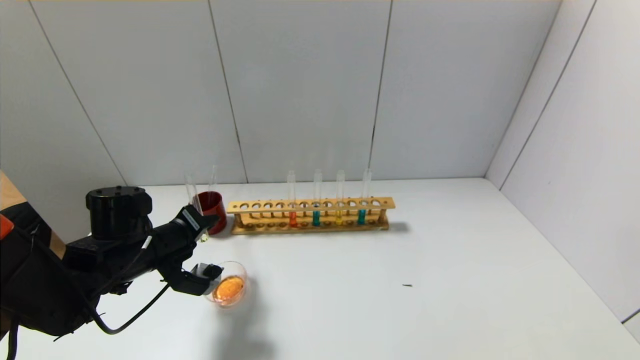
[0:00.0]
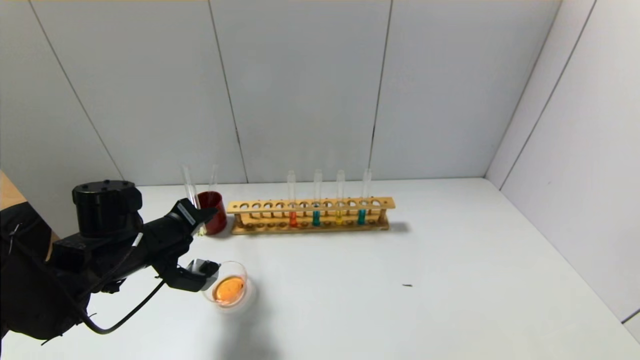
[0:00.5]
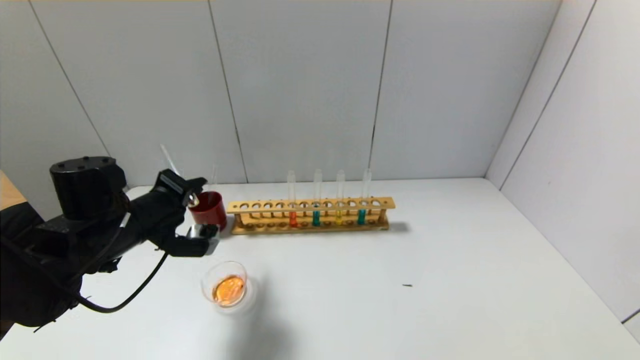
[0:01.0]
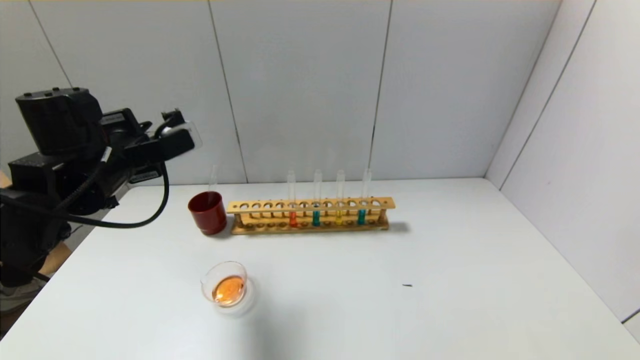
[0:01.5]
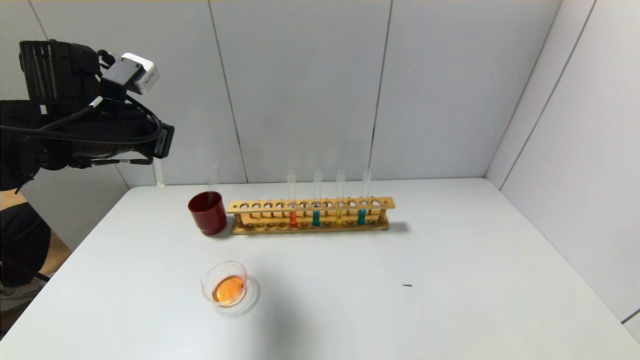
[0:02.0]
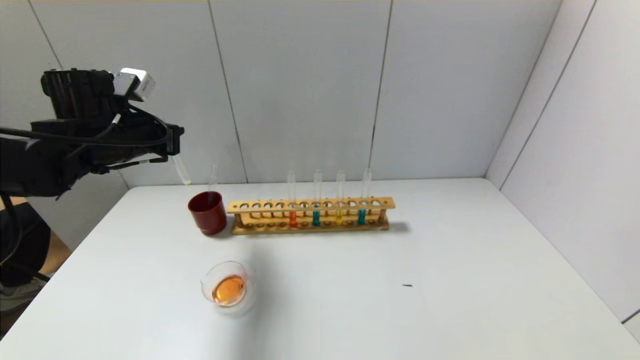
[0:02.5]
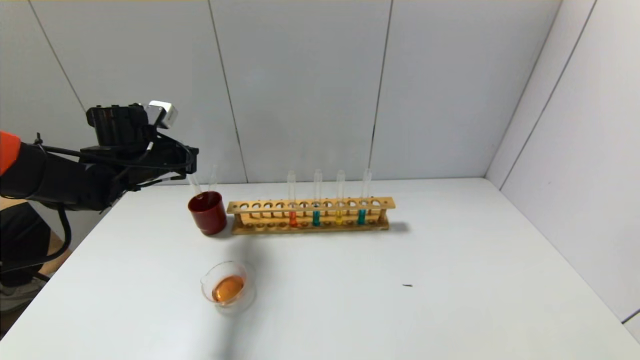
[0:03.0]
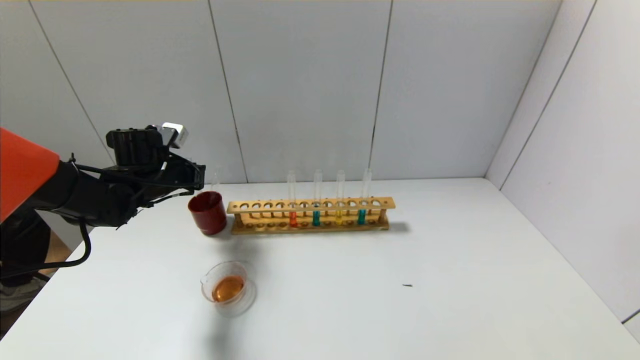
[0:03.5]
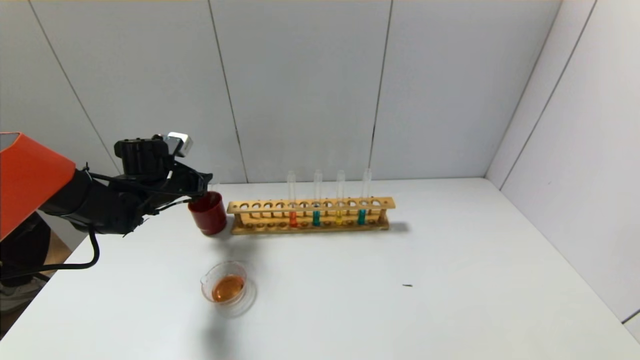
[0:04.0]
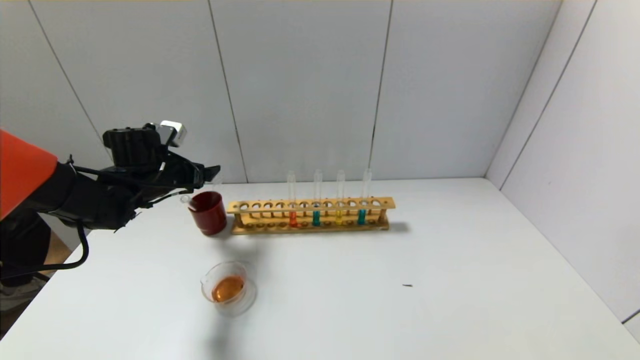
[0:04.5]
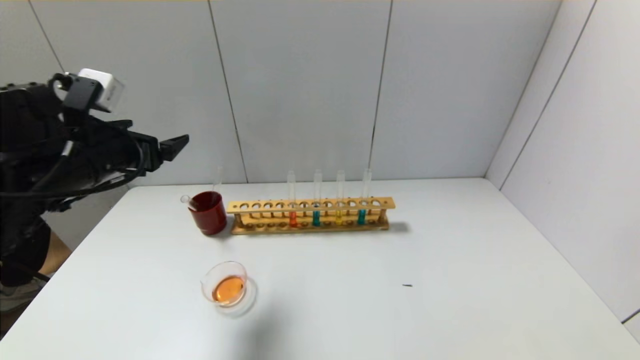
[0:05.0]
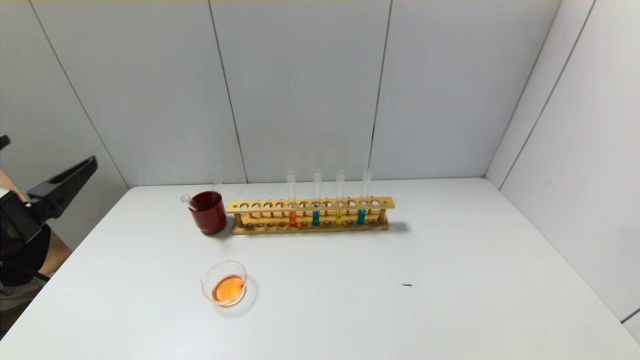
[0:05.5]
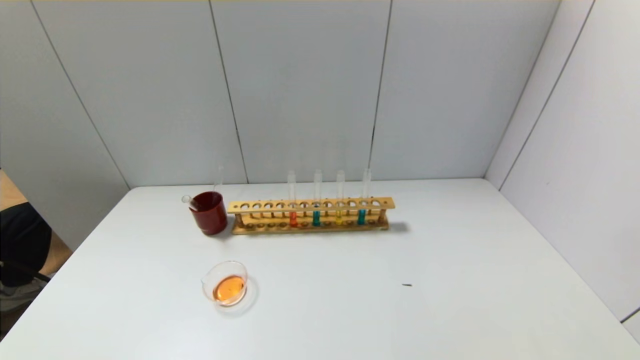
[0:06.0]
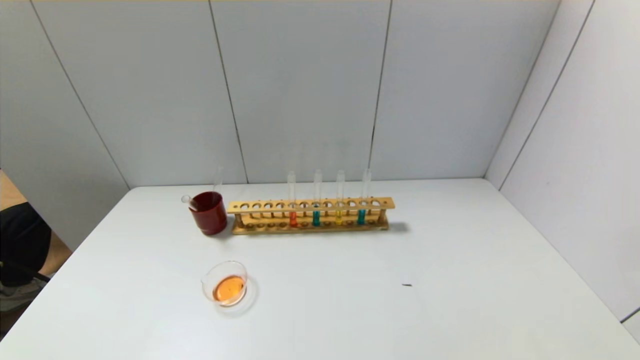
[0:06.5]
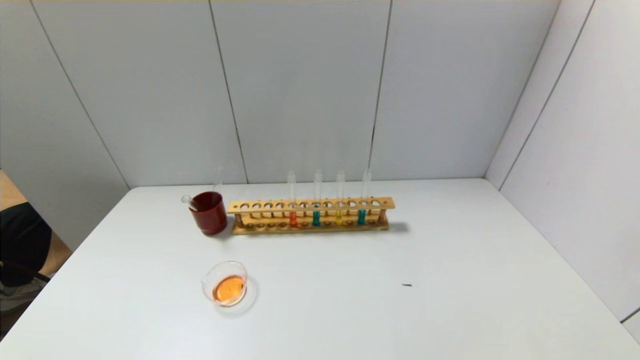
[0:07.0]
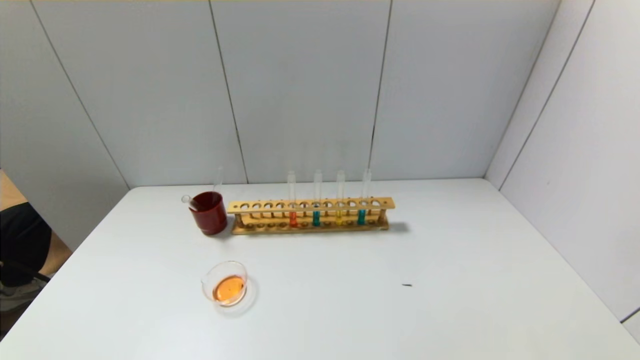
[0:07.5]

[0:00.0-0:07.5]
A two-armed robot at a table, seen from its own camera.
Step, 0:01.5 to 0:03.5: Place the test tube into the brown cup with the left gripper.
0:00.0 to 0:02.0: The left gripper is displaced upward by roughly 15 cm.
0:02.0 to 0:04.0: The left gripper moves downward and forward, some 20 cm.
0:04.0 to 0:05.5: The left gripper travels backward and upward by approximately 35 cm, and opens its fingers.
0:05.5 to 0:07.5: The left gripper heads downward and backward, covering some 20 cm.

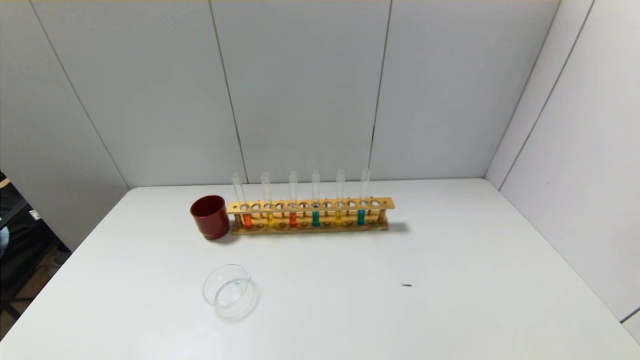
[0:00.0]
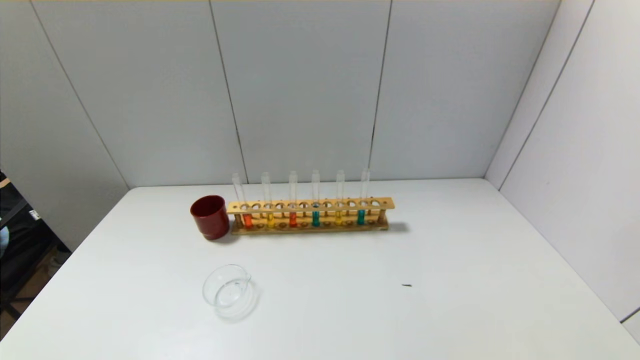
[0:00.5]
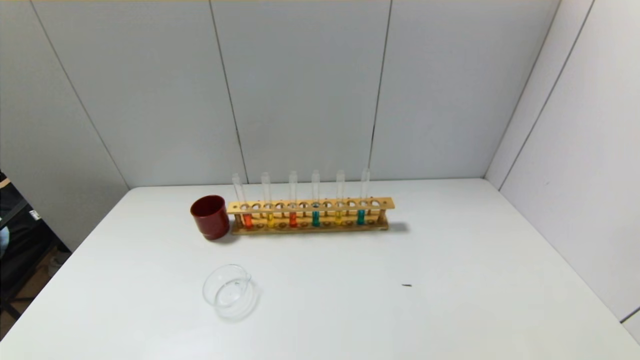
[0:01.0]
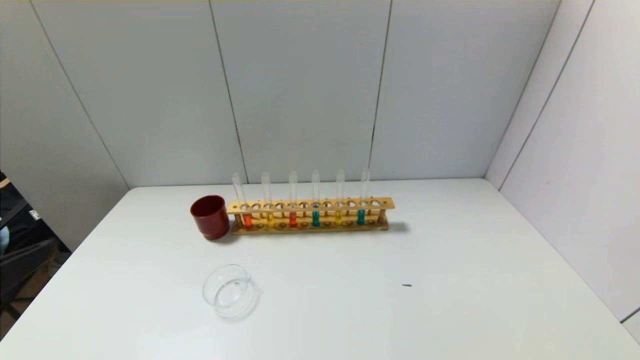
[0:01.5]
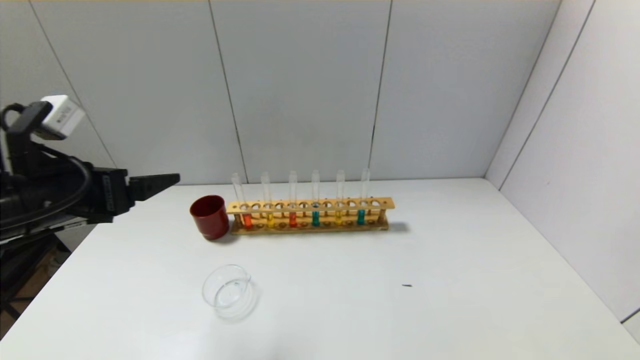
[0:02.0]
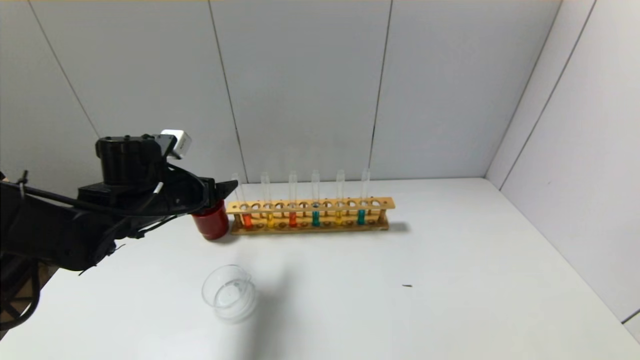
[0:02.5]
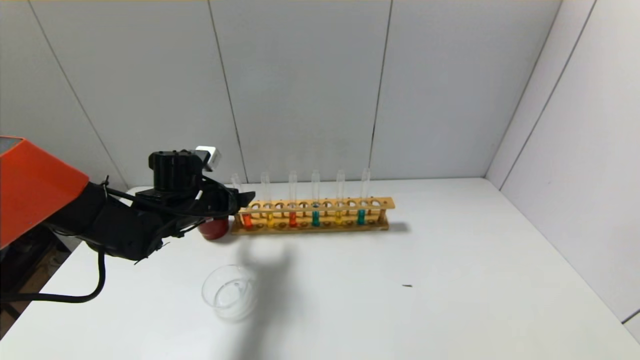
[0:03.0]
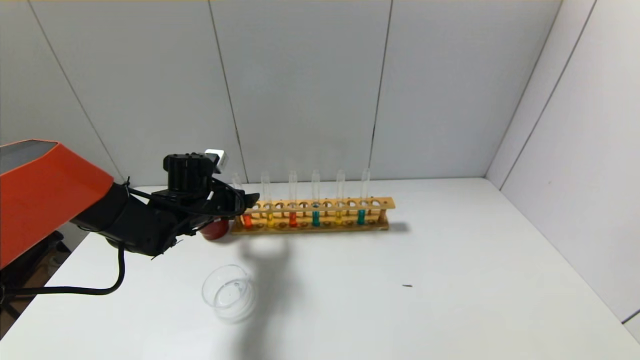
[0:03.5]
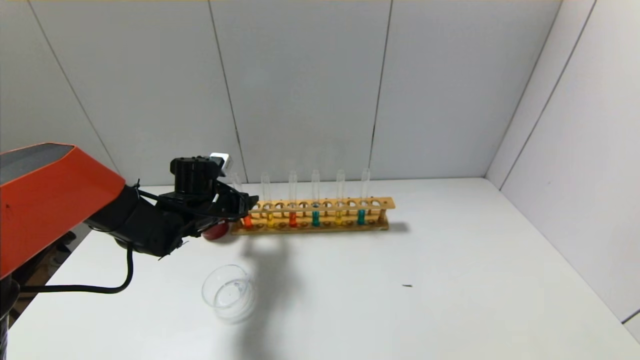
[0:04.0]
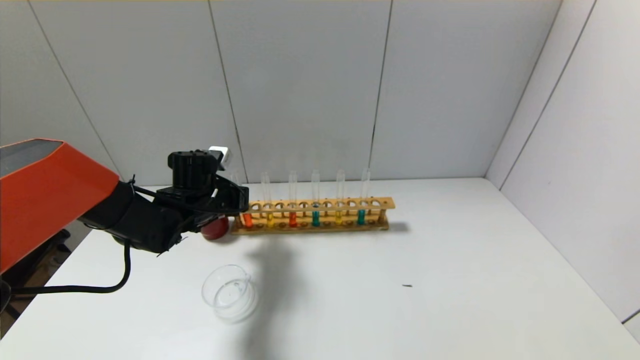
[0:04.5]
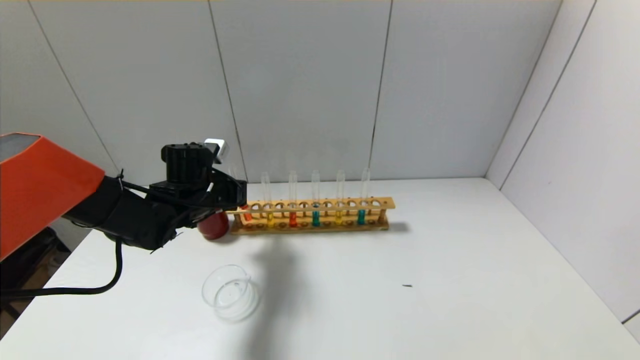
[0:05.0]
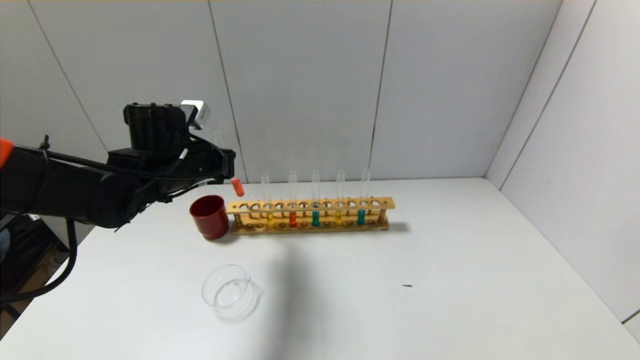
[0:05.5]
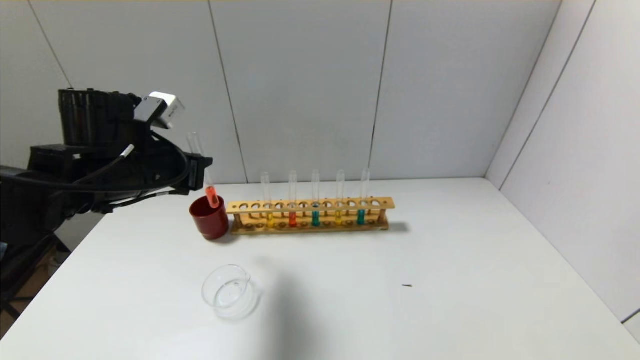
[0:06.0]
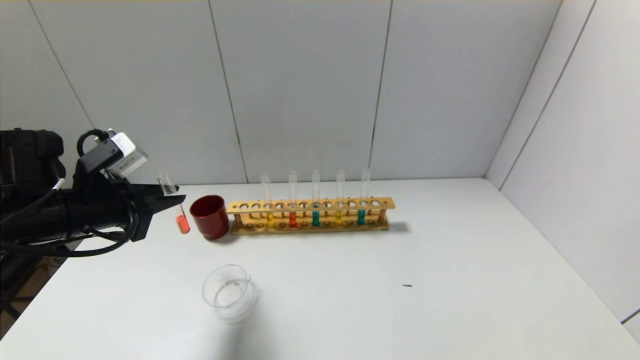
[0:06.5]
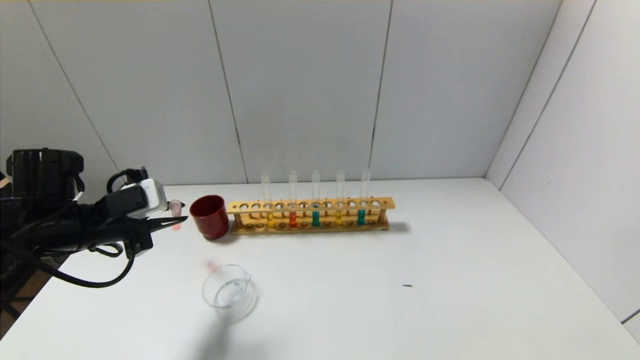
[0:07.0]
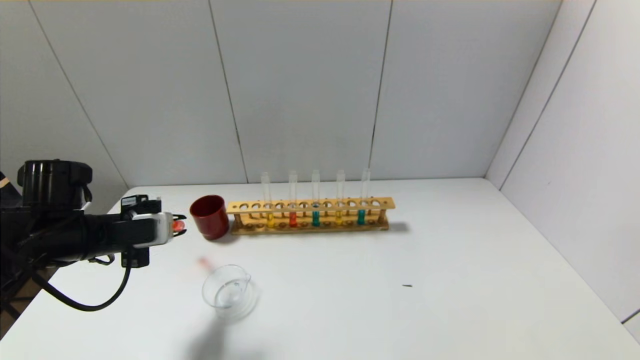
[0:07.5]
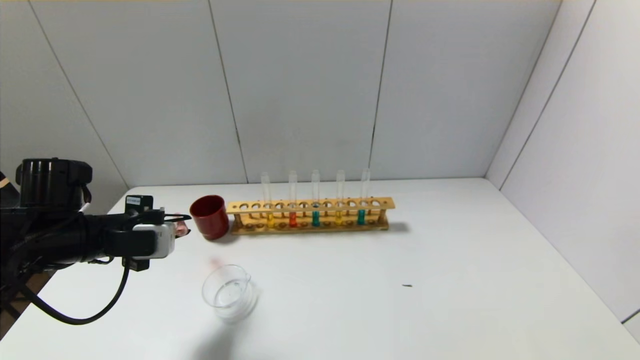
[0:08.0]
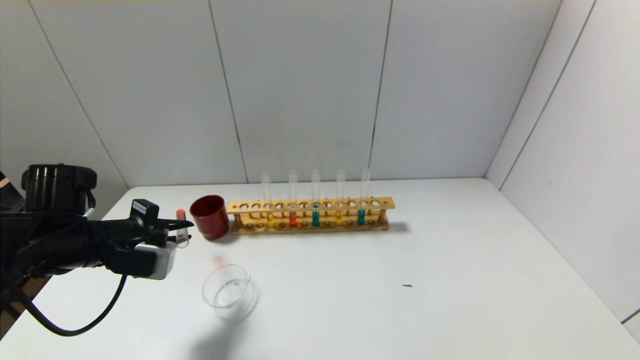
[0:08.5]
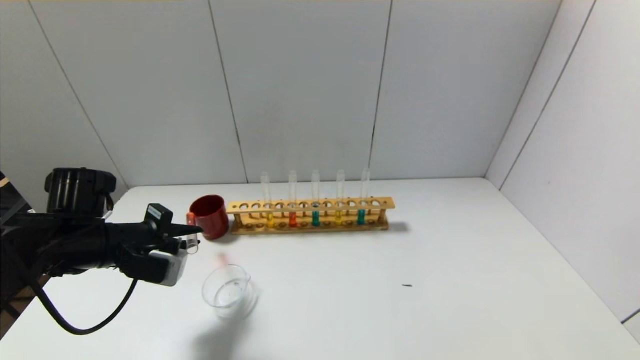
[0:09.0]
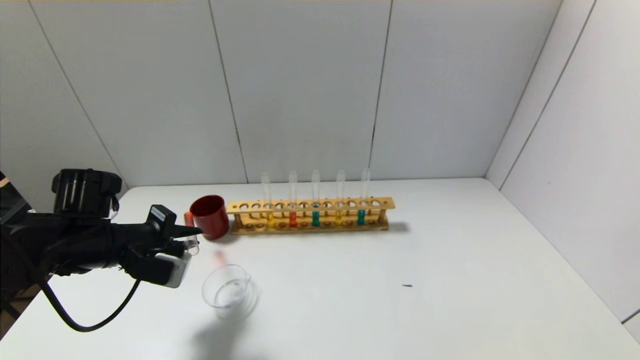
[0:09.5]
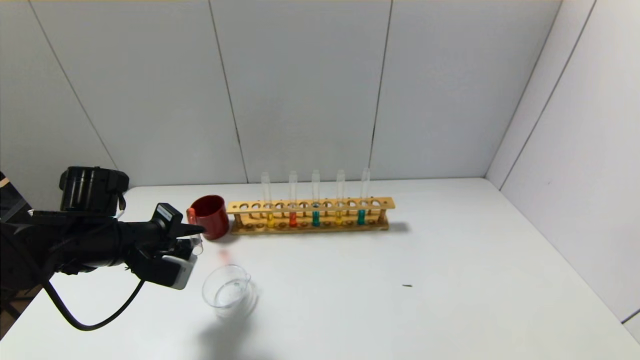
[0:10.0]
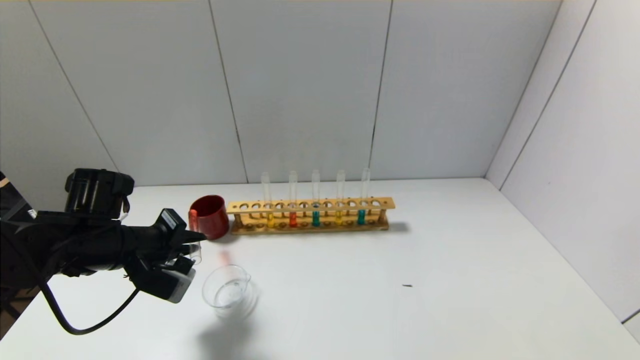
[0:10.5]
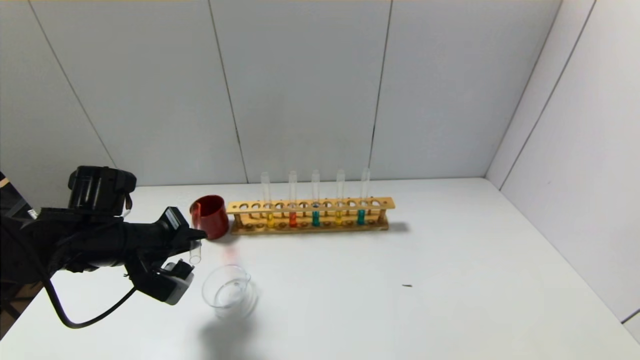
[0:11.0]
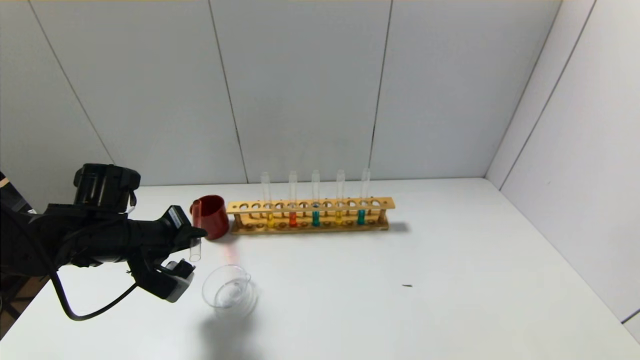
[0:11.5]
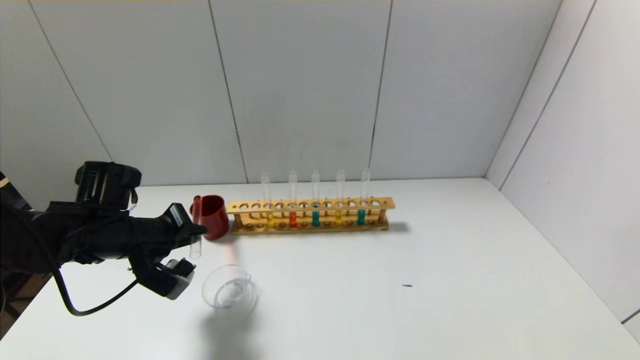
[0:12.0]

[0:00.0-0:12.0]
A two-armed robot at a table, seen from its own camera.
Step, 0:00.0 to 0:04.0: Grasp the red reagent with the left gripper.
0:00.0 to 0:02.0: The left gripper travels forward and upward by some 30 cm.
0:02.0 to 0:04.0: The left gripper goes about 20 cm forward, downward and to the right.
0:04.0 to 0:06.0: The left gripper goes about 15 cm upward and backward, and closes its fingers.
0:06.0 to 0:08.0: The left gripper goes about 10 cm downward and to the left.
